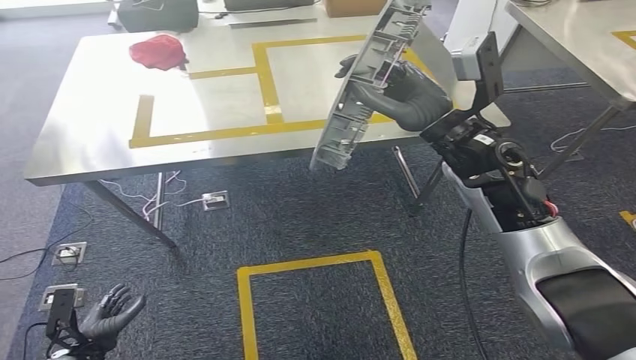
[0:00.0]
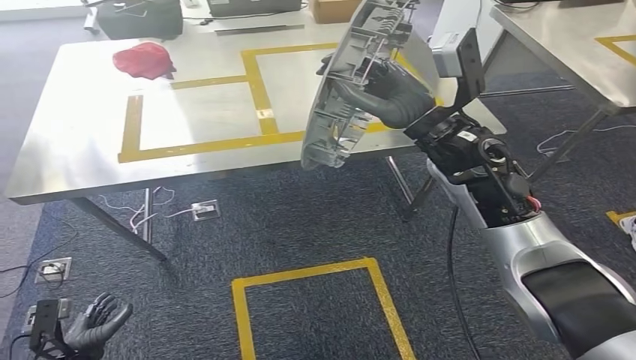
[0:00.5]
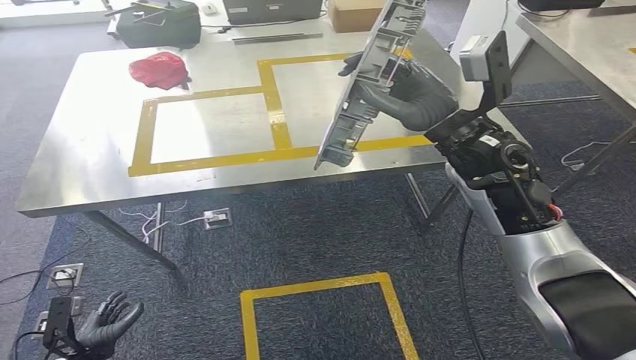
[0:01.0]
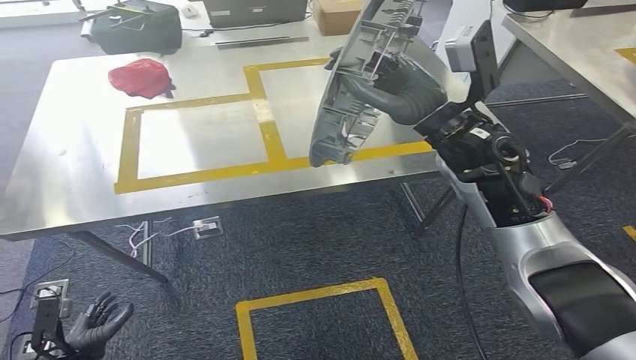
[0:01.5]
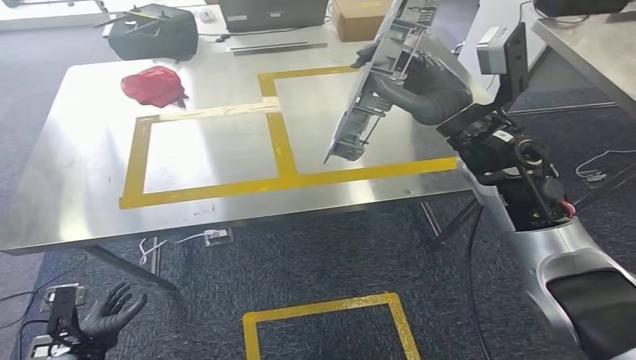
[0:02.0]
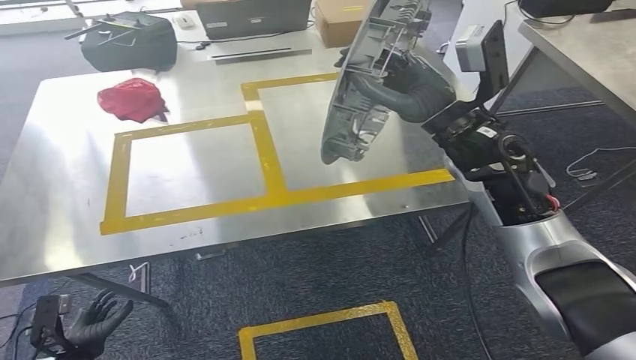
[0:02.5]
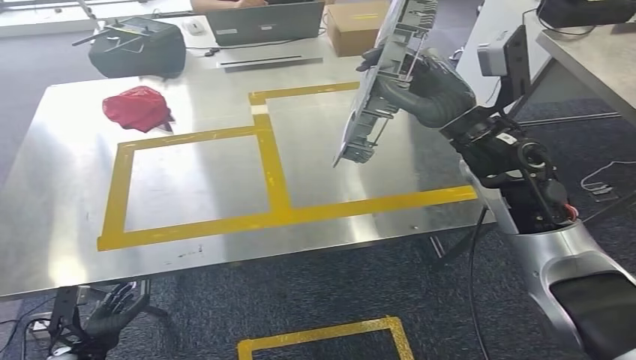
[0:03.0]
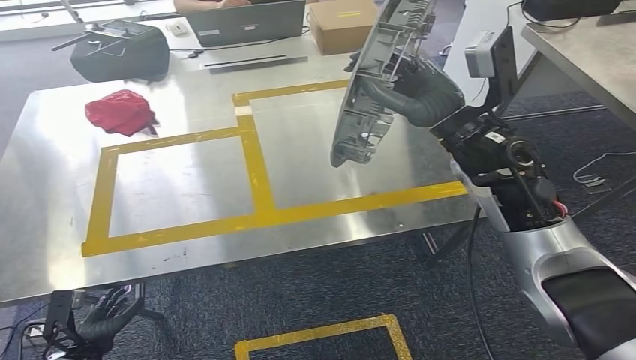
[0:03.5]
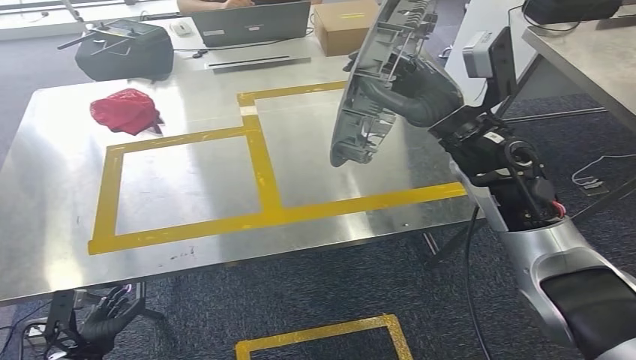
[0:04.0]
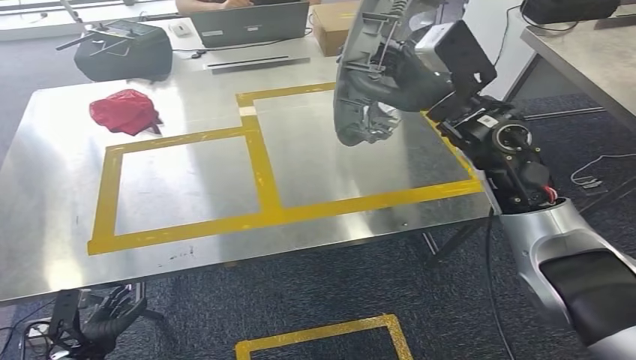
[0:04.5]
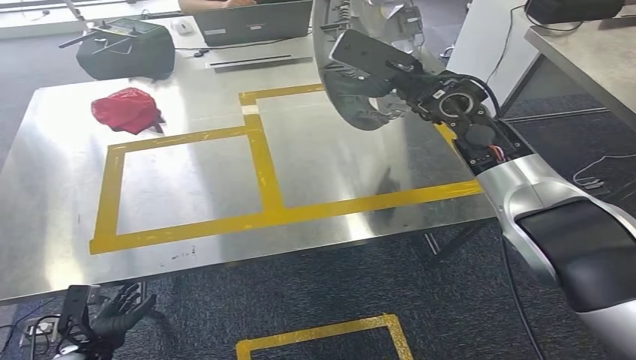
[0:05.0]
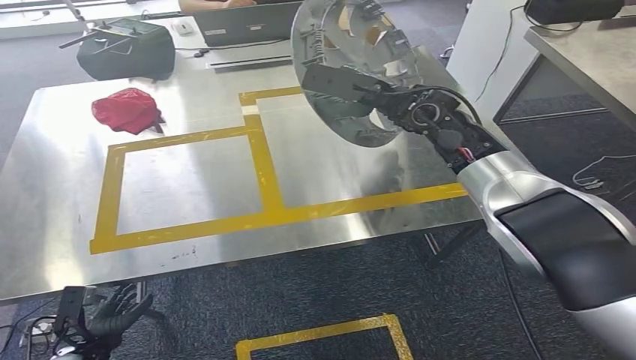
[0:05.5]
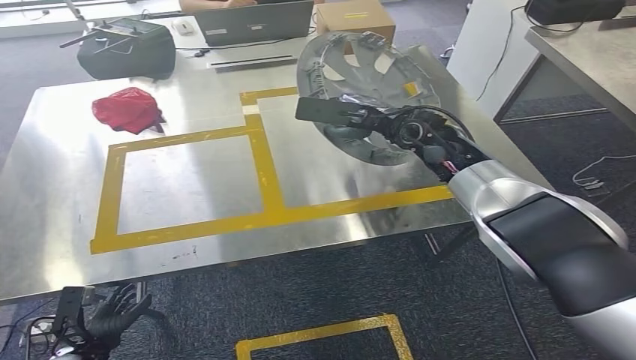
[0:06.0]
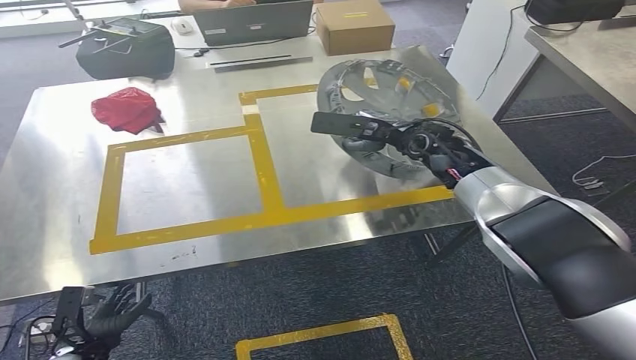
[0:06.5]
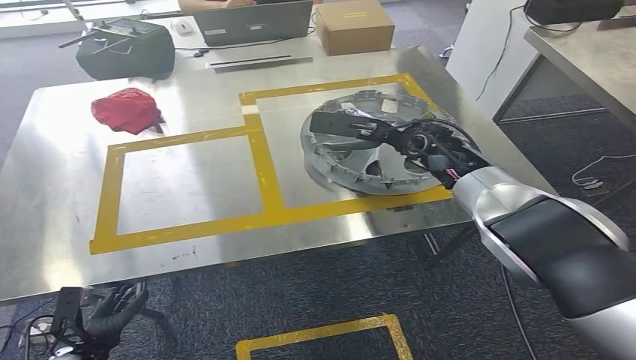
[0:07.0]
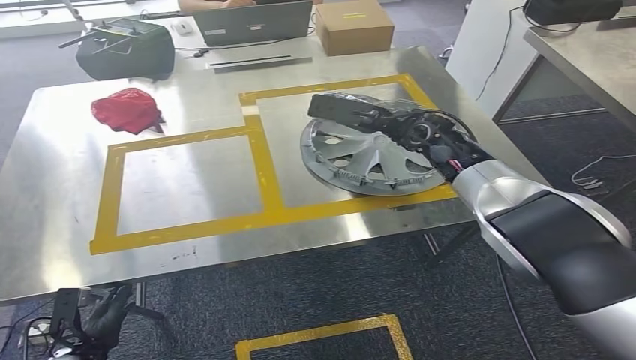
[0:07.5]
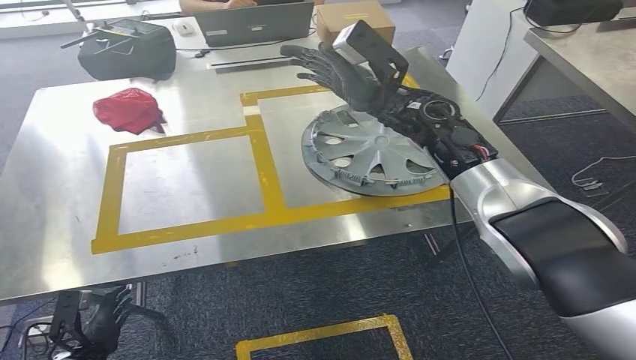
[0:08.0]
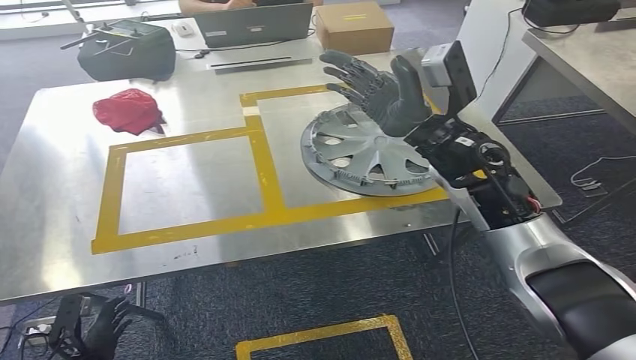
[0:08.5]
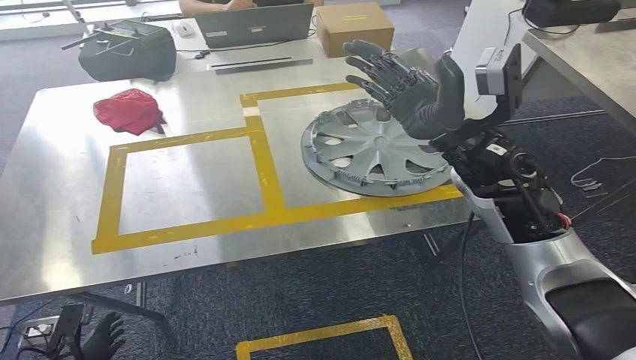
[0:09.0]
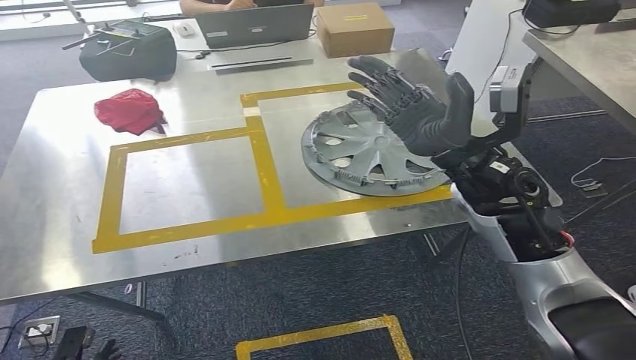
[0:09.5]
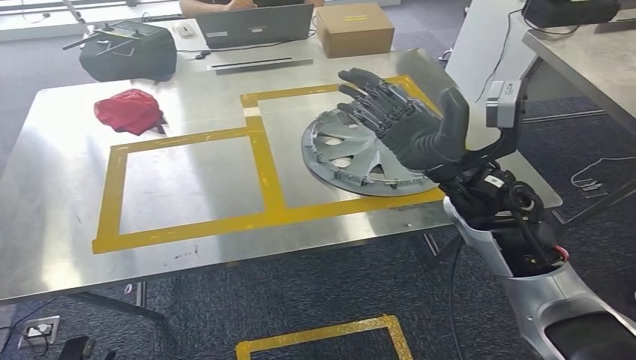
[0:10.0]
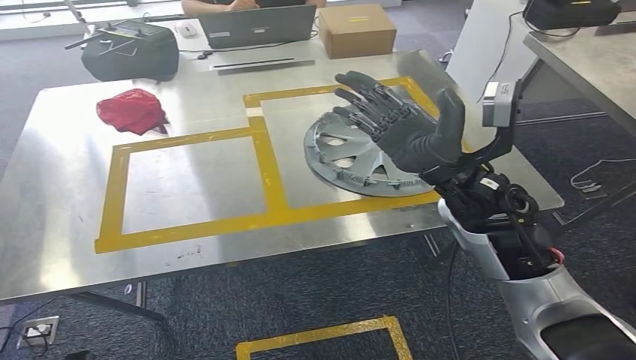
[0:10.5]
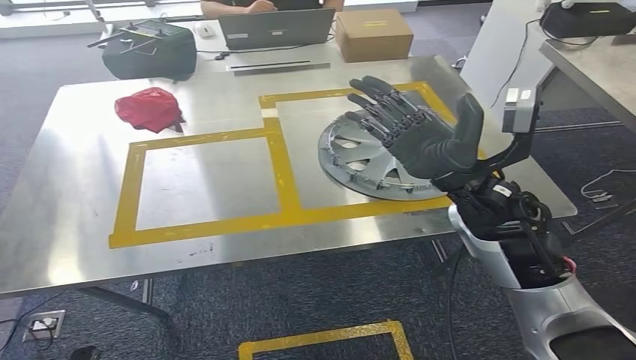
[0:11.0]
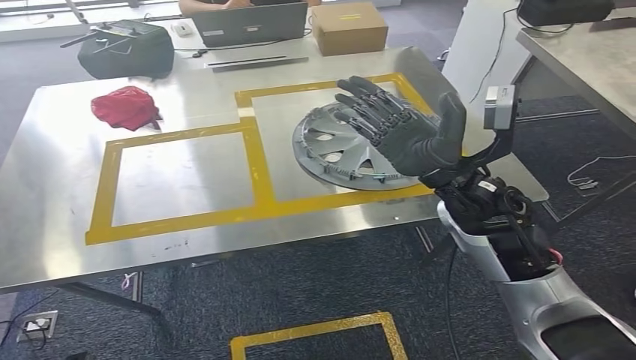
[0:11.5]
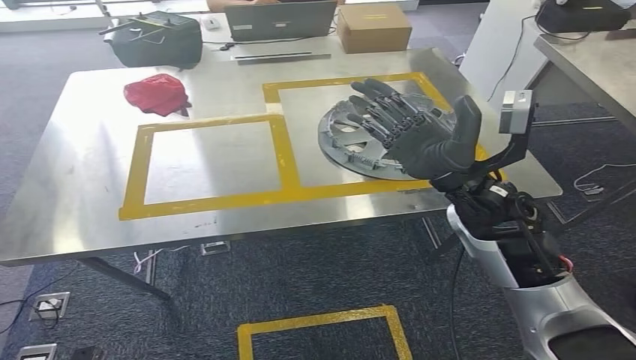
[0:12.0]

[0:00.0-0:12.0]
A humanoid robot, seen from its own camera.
Step, 0:00.0 to 0:03.0: Move the small component to the workbench.
Step, 0:03.5 to 0:08.0: Insert the small component into the corresponding slot on the workbench.
0:08.0 to 0:10.0: The right hand shifts about 15 cm backward, while the left hand is displaced backward by some 10 cm.

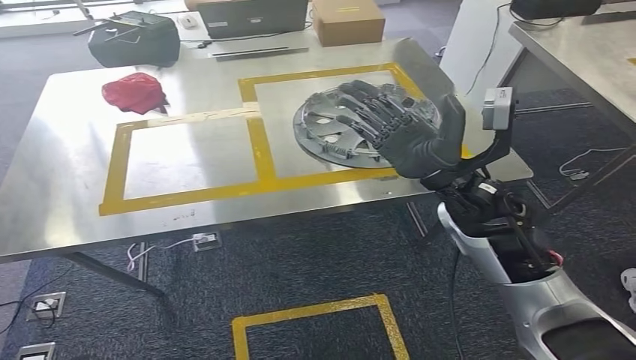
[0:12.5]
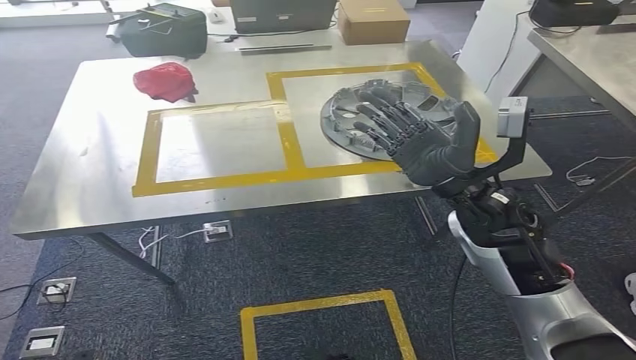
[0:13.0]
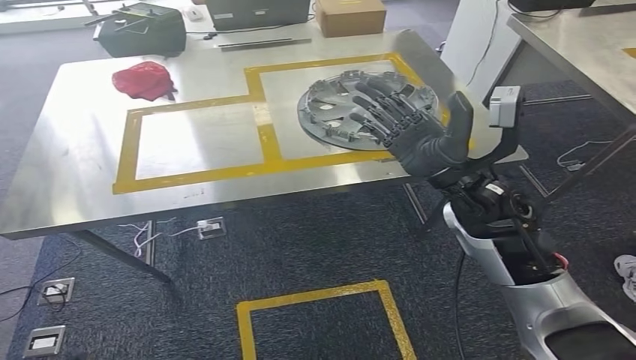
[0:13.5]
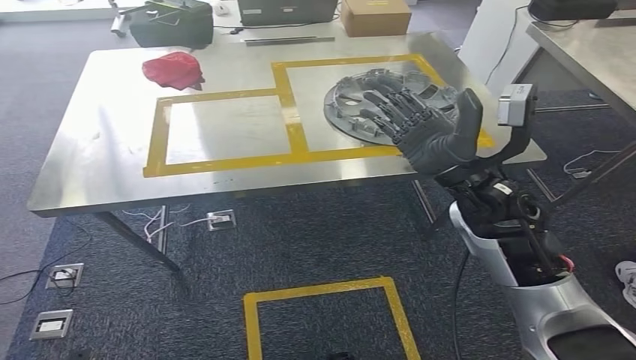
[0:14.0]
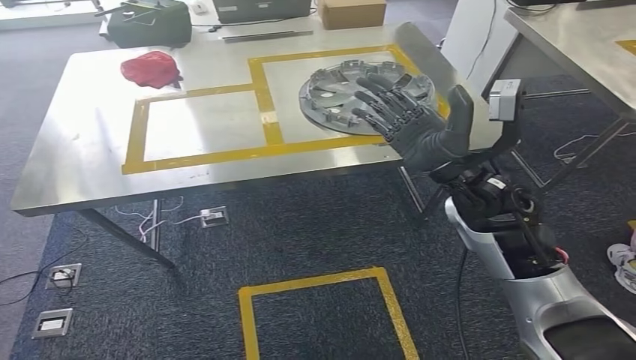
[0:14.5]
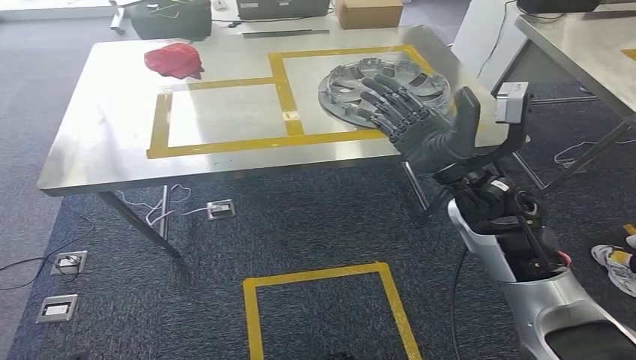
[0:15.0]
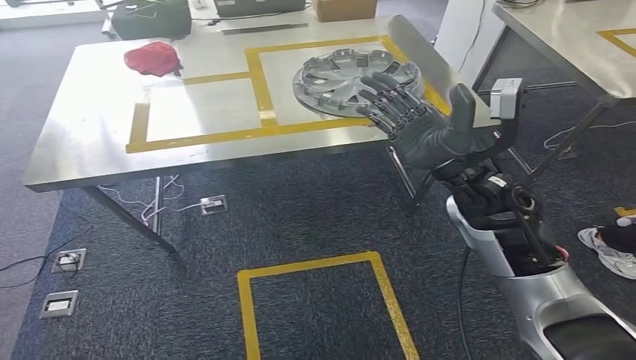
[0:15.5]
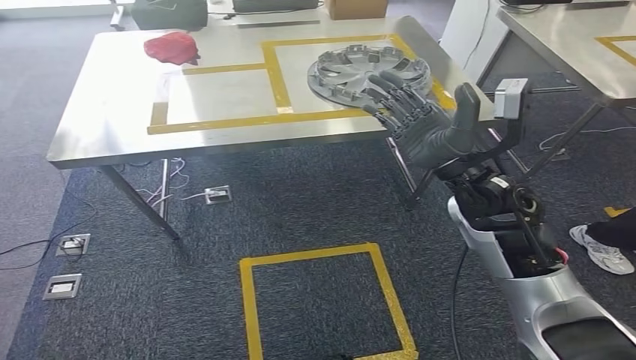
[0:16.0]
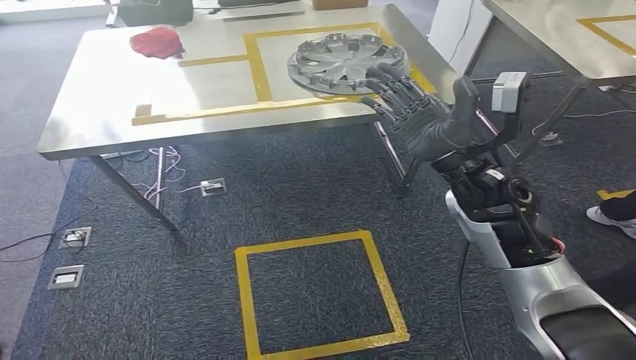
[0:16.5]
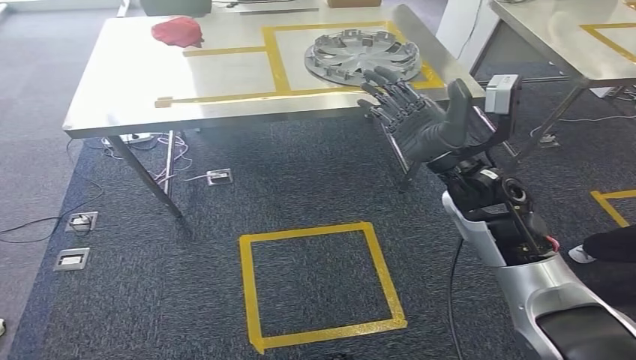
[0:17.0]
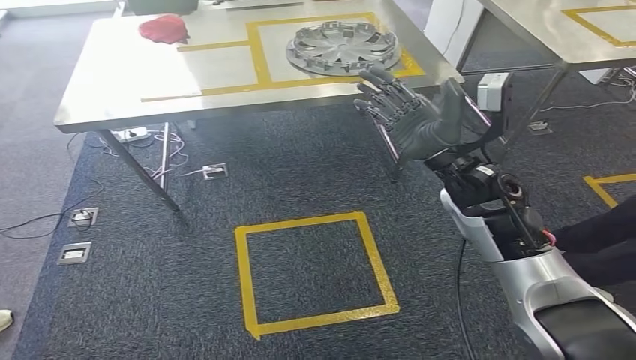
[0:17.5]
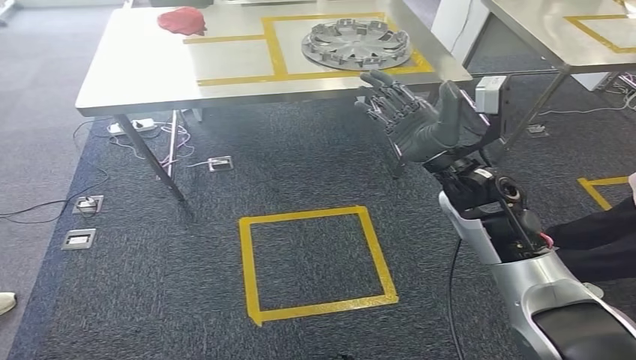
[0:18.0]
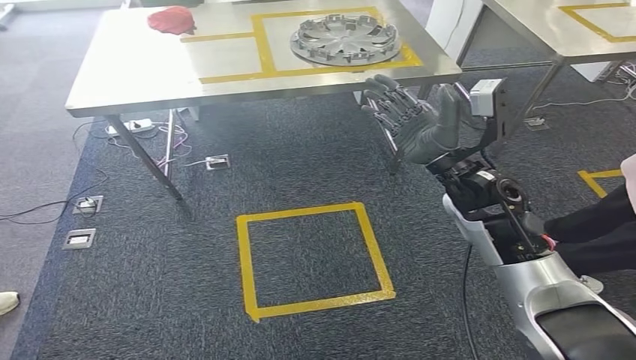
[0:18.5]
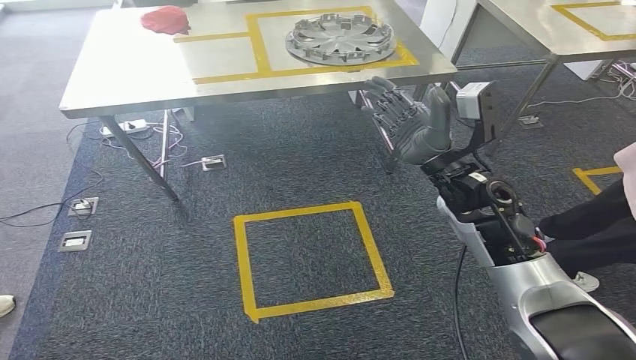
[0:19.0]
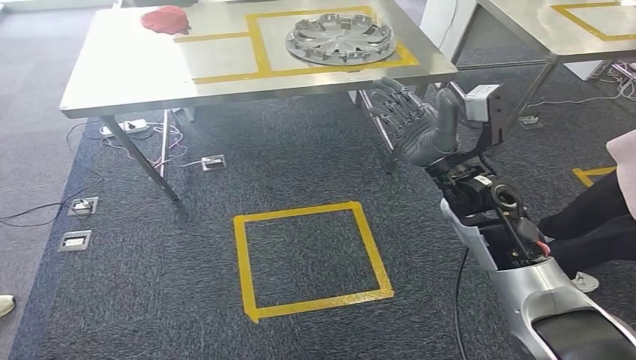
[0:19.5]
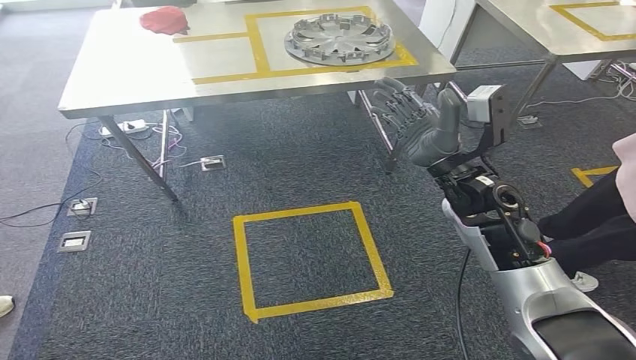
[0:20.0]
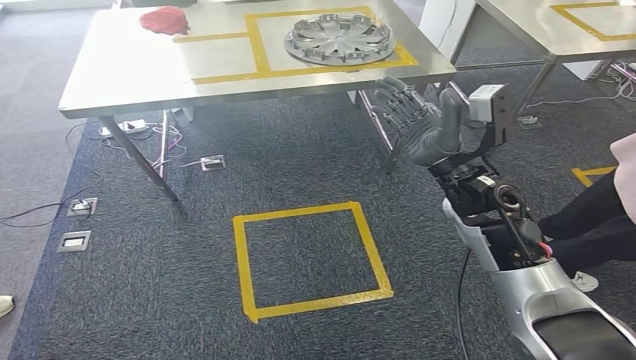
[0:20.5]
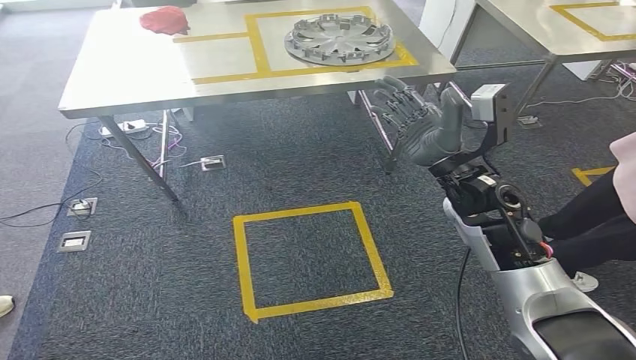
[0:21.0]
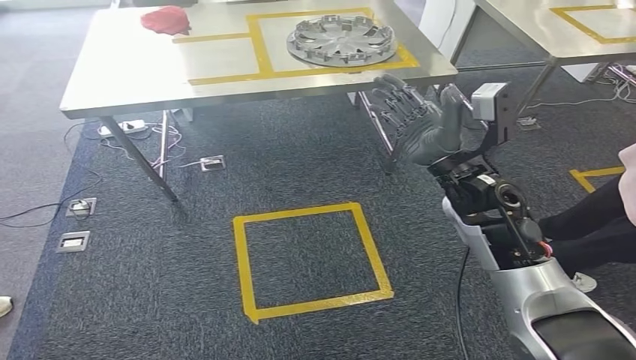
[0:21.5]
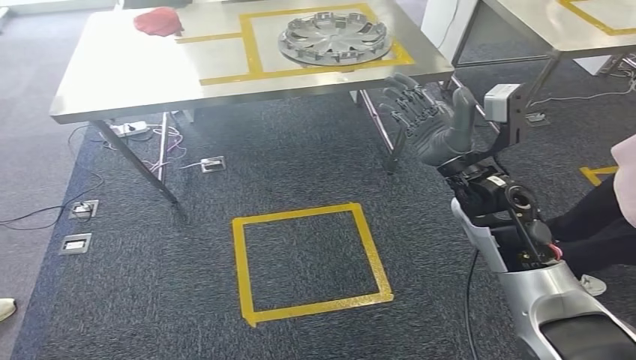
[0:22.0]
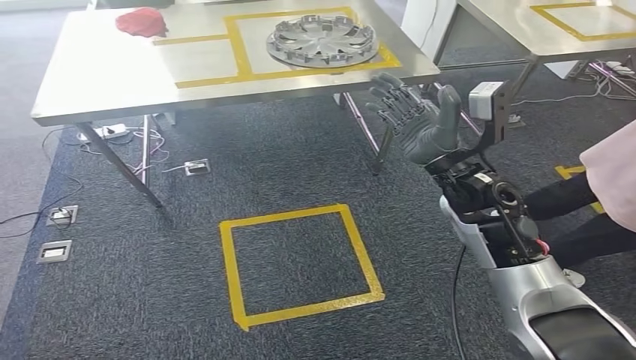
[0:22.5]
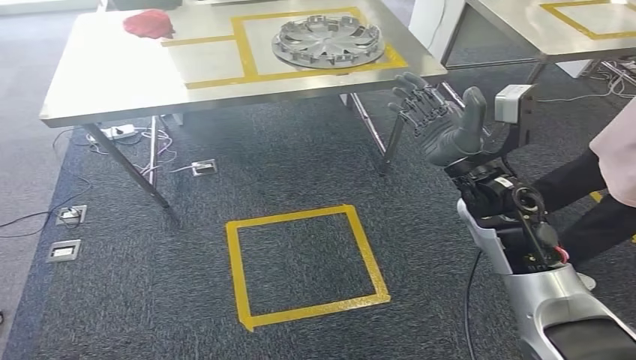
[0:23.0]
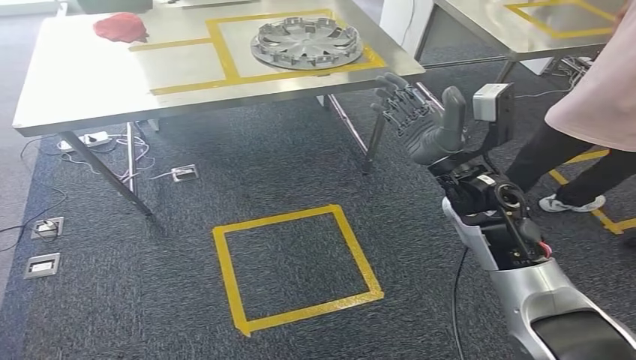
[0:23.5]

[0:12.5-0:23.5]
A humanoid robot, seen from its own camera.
0:18.0 to 0:20.0: The hands make only small movements.
0:20.0 to 0:21.5: The two hands keep their place.
